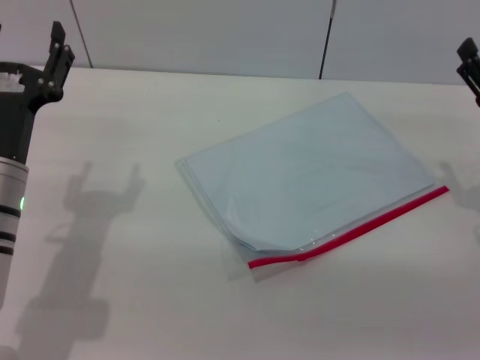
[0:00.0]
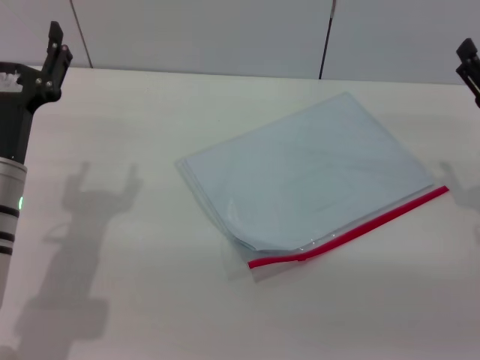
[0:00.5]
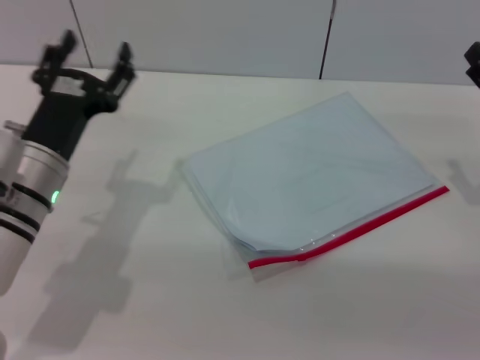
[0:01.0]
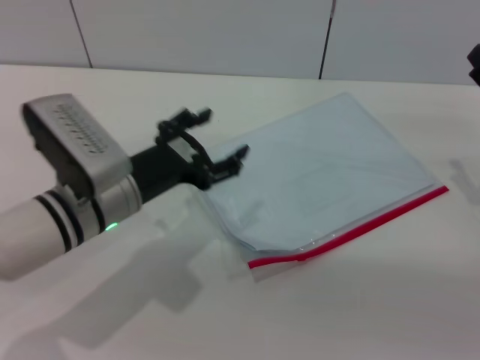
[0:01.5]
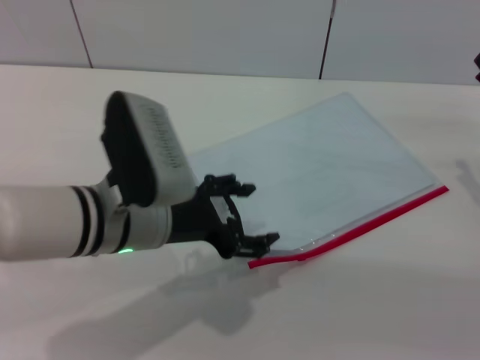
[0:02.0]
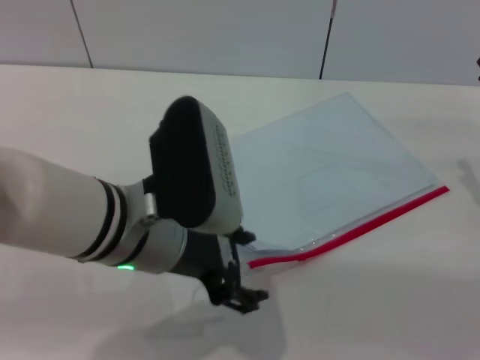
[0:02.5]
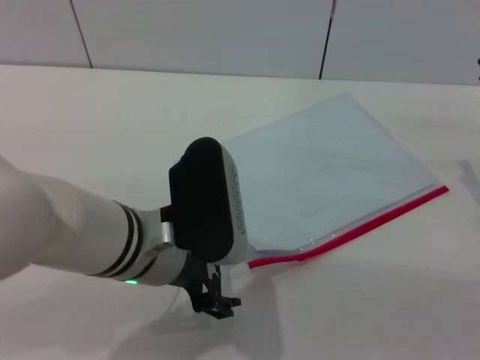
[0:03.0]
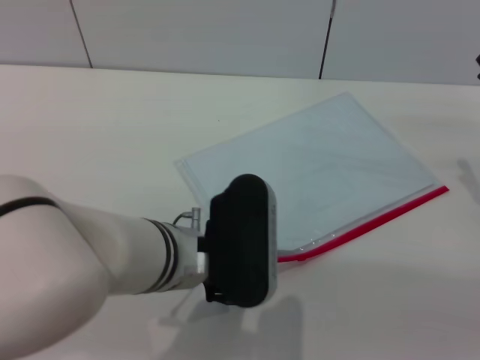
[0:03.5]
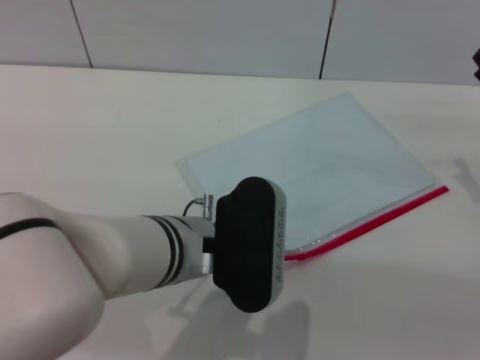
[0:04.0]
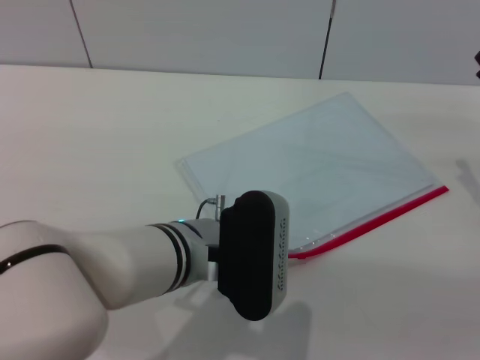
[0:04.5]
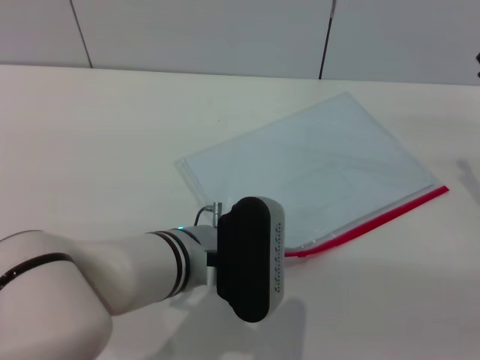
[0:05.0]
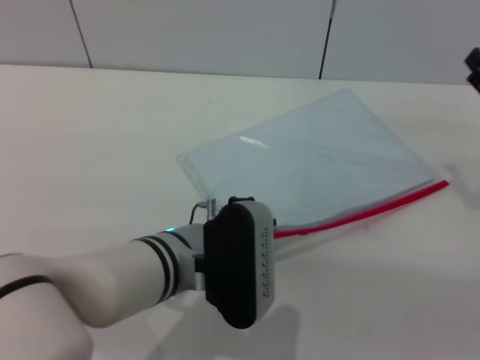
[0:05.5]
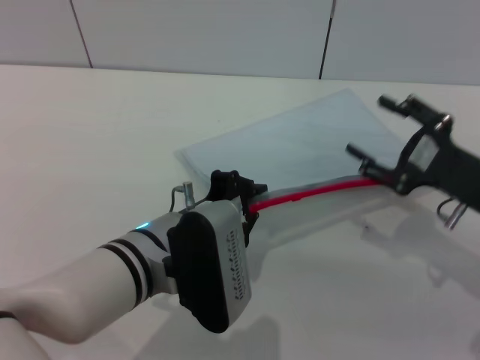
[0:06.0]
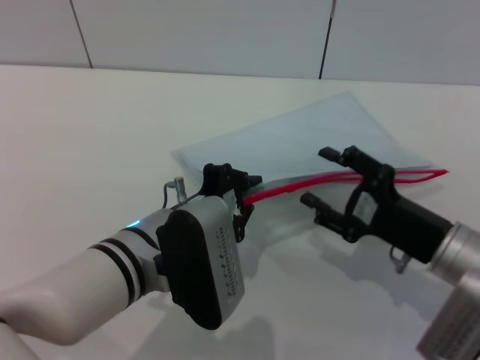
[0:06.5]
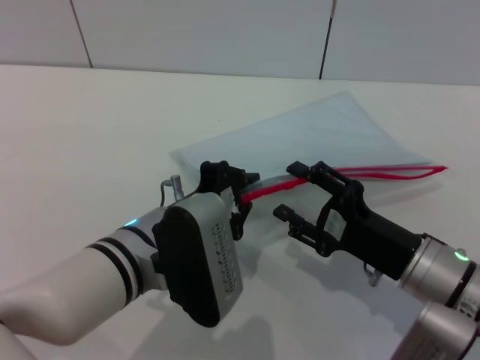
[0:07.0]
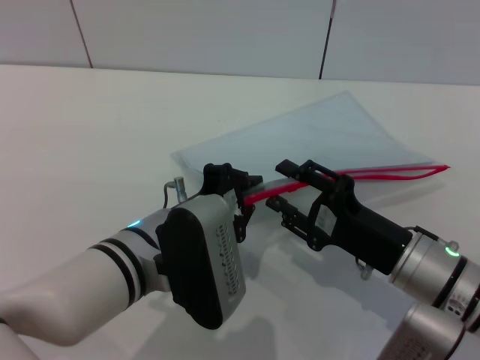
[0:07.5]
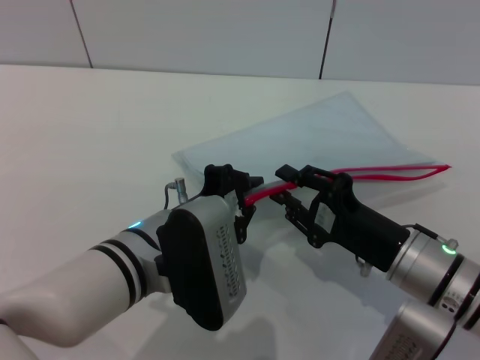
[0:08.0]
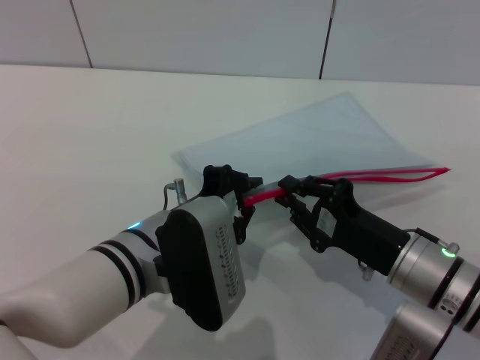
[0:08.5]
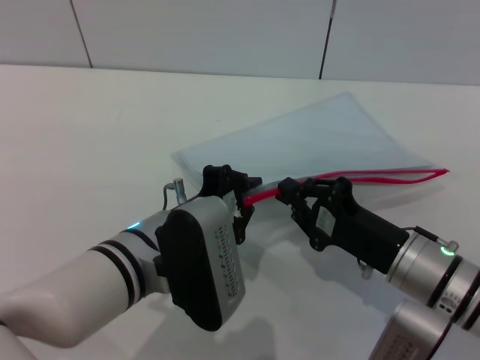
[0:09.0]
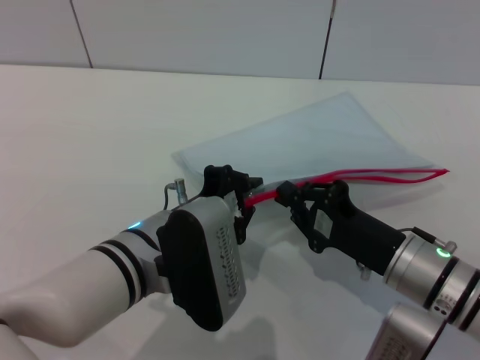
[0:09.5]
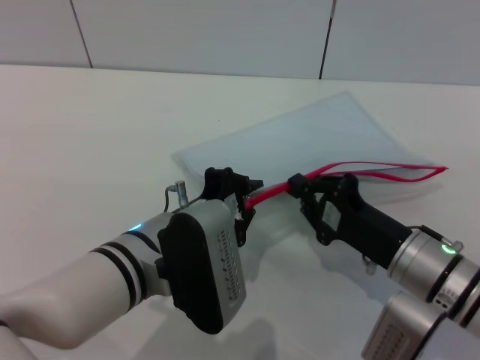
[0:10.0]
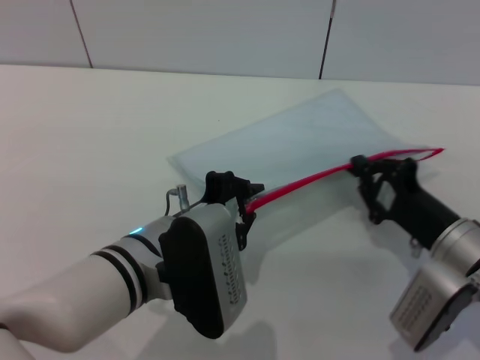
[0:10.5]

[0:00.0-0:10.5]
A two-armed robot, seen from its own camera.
Step, 0:00.0 to 0:05.5: Pick up the transparent plastic bag with the left gripper.
0:00.0 to 0:02.0: The left gripper shifts approximately 10 cm to the right.
0:02.0 to 0:04.0: The left gripper heads to the right, covering roughly 5 cm.
0:04.0 to 0:06.5: The left gripper closes its fingers. The right gripper shifts about 10 cm to the left and backward.
0:06.5 to 0:08.5: The right gripper closes.
0:08.5 to 0:10.5: The grippers make only small movements.

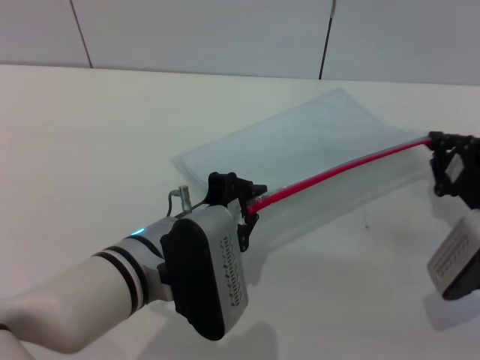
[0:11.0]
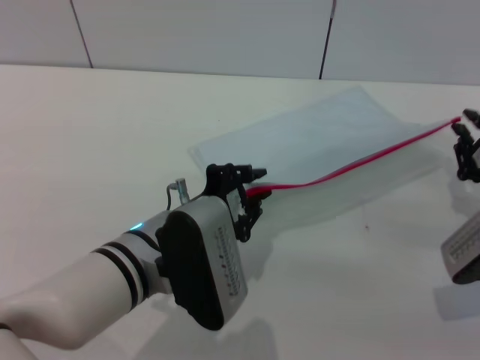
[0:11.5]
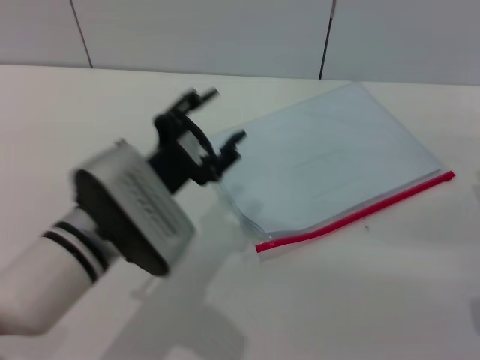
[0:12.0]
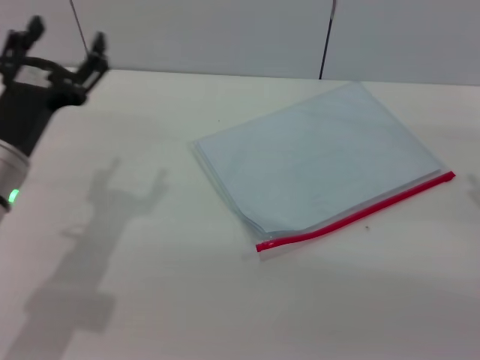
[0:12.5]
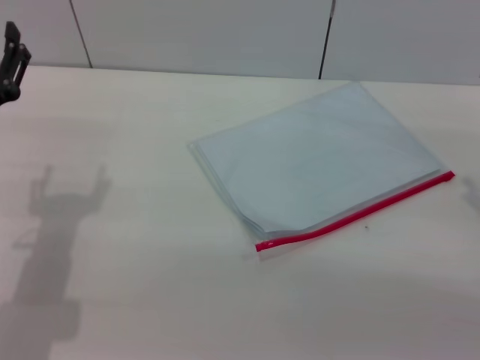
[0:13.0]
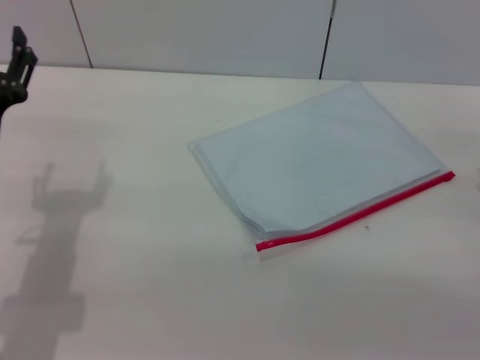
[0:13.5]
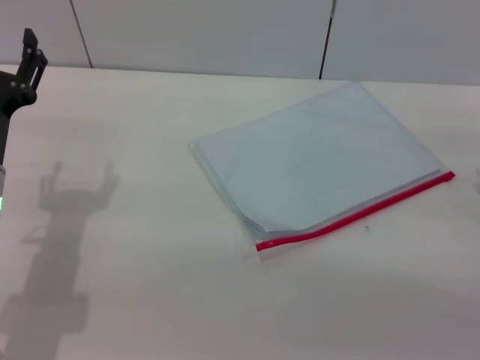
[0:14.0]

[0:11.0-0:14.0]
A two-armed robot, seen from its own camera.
Step, 0:12.0 to 0:12.5: Place the transparent plastic bag.
0:11.0 to 0:12.5: The left gripper is displaced to the left by approximately 15 cm, and opens its fingers. Meanwhile the right gripper moves upward and to the right, approximately 5 cm, and opens up.
0:12.5 to 0:14.0: There are only small adjustments of the grippers.

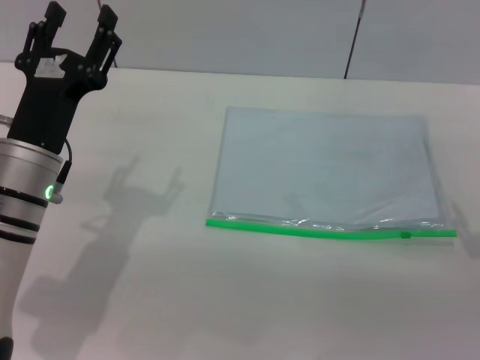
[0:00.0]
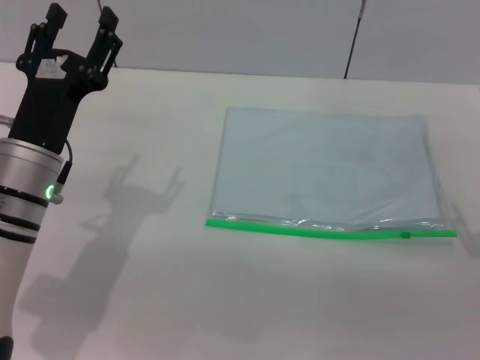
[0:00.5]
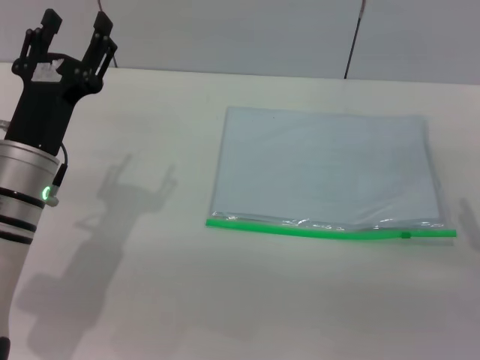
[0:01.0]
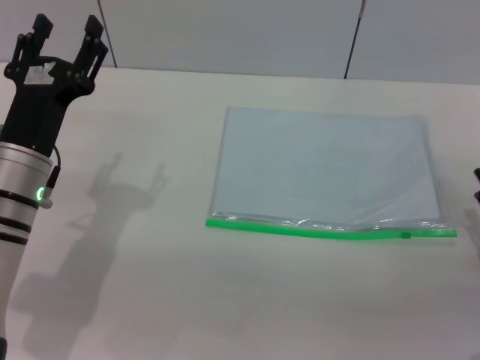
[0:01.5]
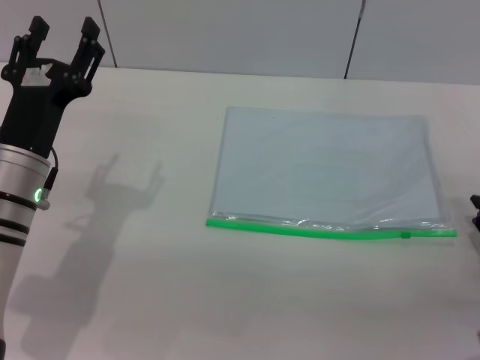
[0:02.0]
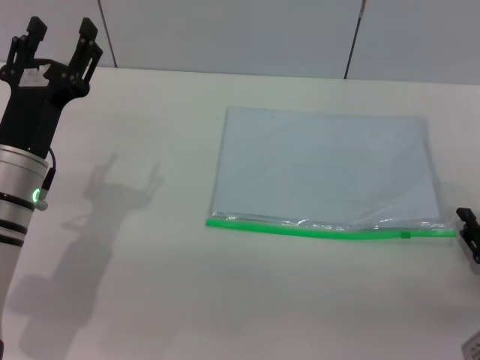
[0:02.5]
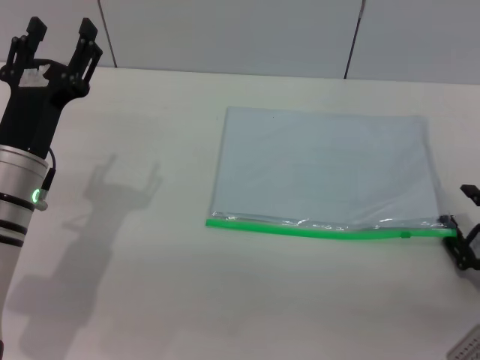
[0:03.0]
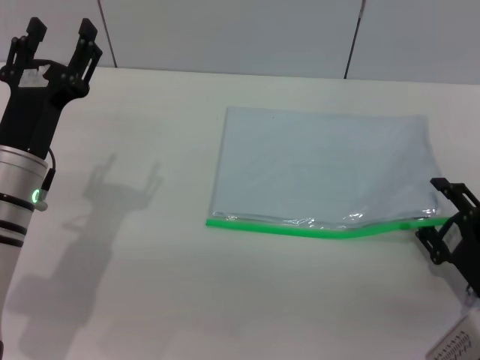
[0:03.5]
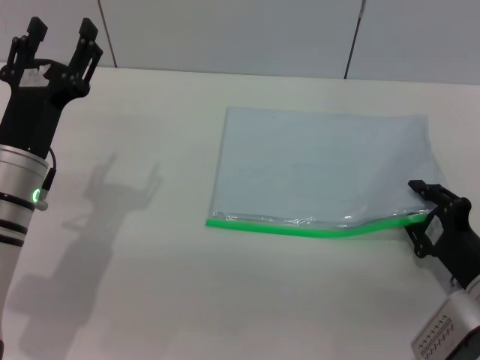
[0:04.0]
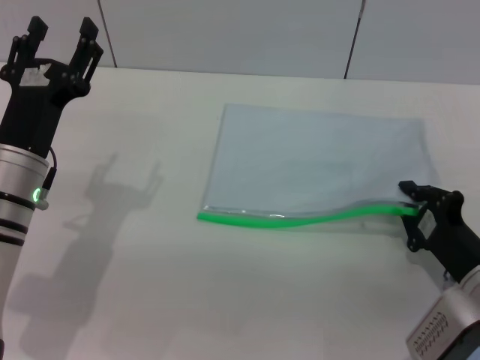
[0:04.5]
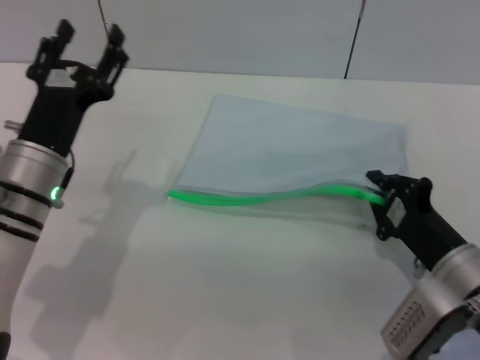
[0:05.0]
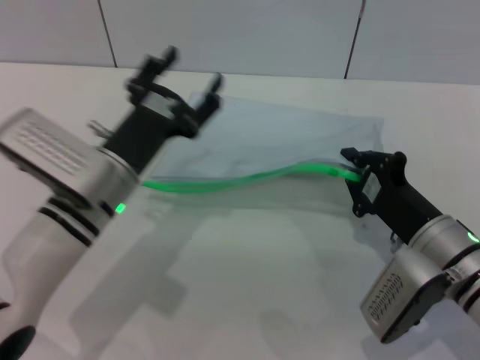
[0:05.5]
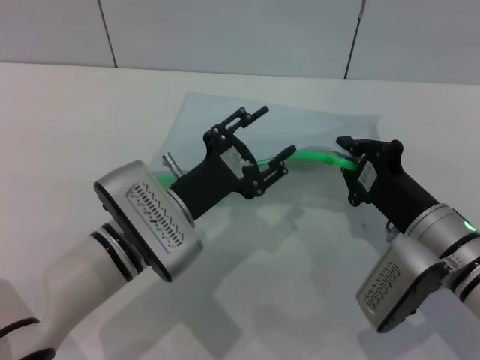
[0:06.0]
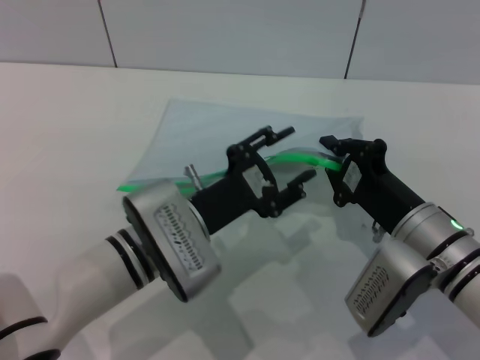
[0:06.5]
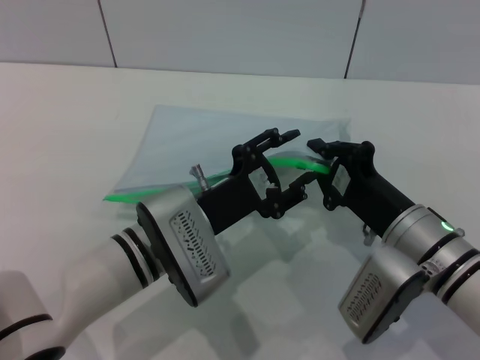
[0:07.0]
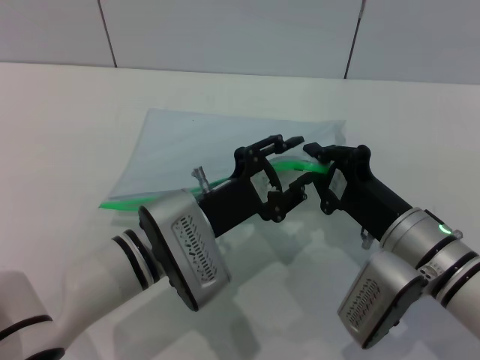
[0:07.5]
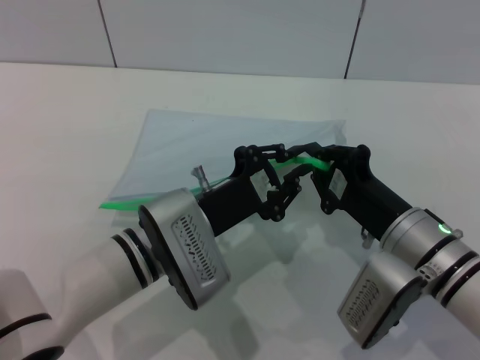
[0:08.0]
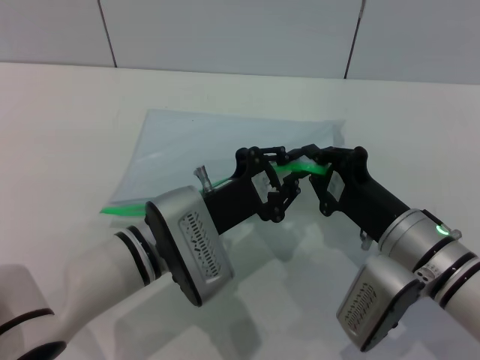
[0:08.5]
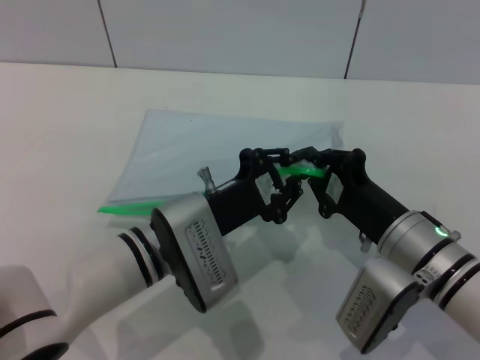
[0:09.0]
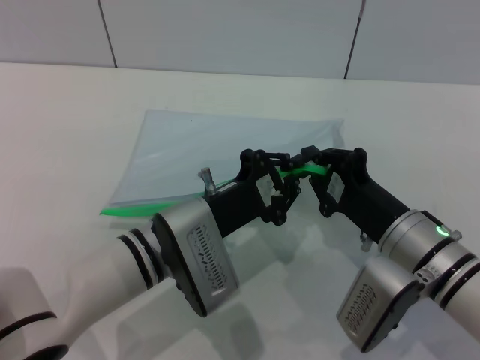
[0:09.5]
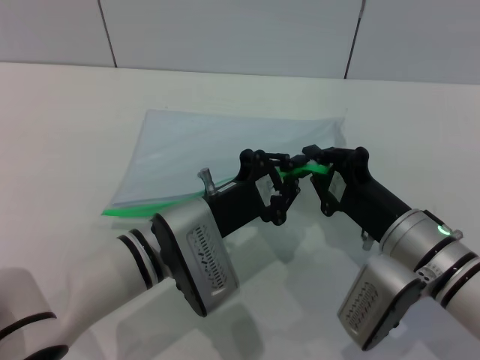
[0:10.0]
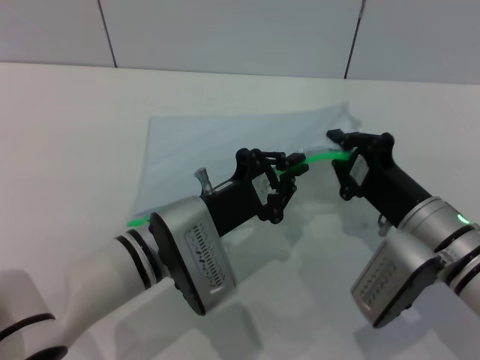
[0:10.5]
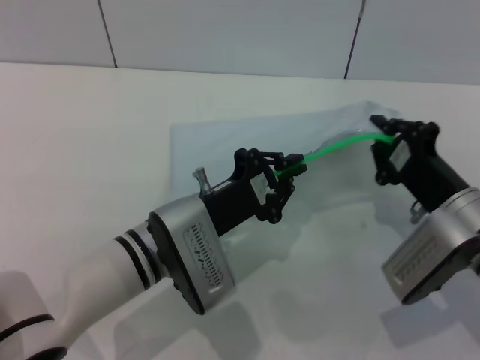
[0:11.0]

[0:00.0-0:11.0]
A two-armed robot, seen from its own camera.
Step, 0:00.0 to 0:05.0: Pick up the transparent plastic bag with the right gripper.
0:02.0 to 0:03.5: The grippers move only a little.
0:03.5 to 0:05.5: The right gripper is displaced to the left and forward by approximately 10 cm, and closes up. The left gripper heads to the right, covering some 5 cm.
0:05.5 to 0:07.5: The left gripper moves to the right, roughly 5 cm.
0:07.5 to 0:09.0: The left gripper closes.
0:09.0 to 0:11.0: The right gripper moves approximately 5 cm.

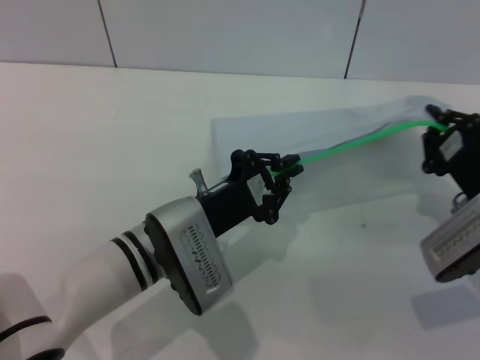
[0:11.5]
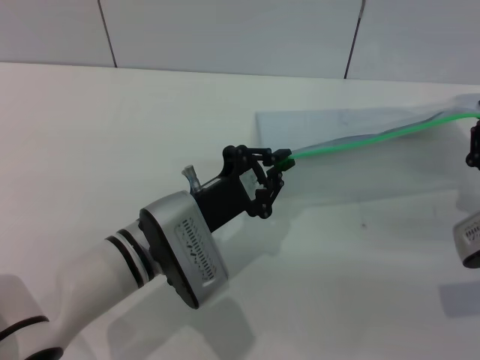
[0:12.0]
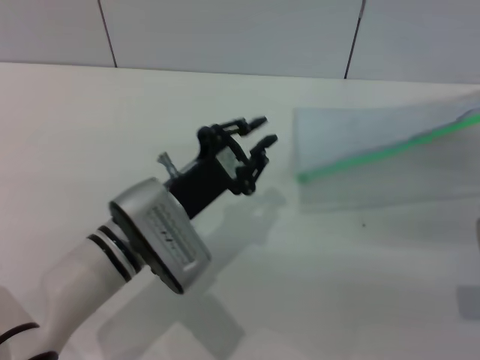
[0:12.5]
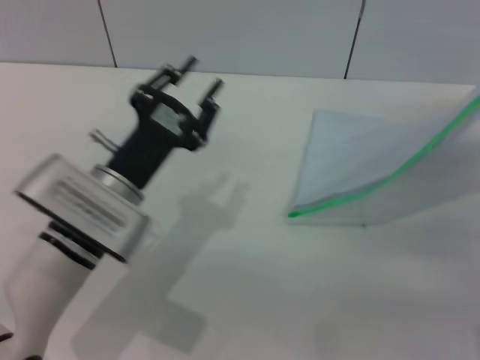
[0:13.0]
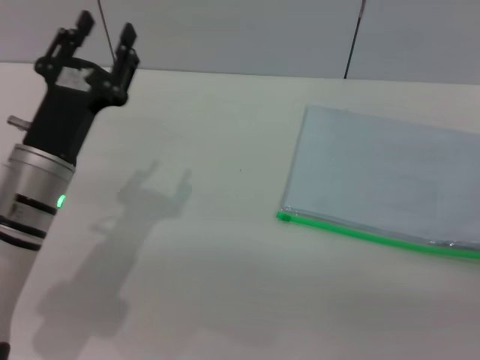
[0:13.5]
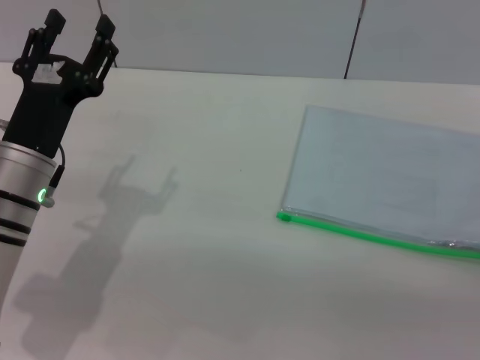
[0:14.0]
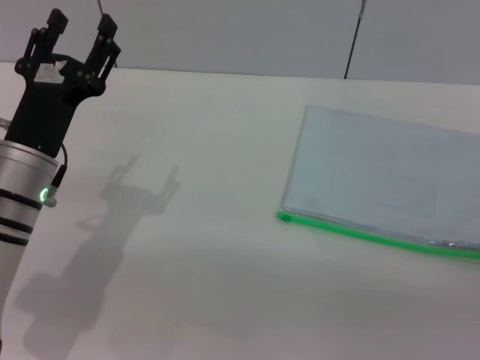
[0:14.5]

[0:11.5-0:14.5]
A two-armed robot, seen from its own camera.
Step, 0:13.0 to 0:13.5: Place the transparent plastic bag.
0:11.5 to 0:13.0: The left gripper heads to the left, covering about 5 cm, and opens its fingers. The right gripper moves approximately 5 cm, and opens its fingers.
0:13.0 to 0:14.5: The left gripper shifts approximately 5 cm to the left, and opens, while the right gripper opens its fingers.
